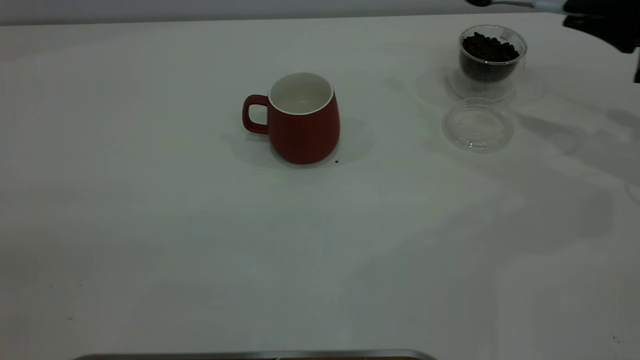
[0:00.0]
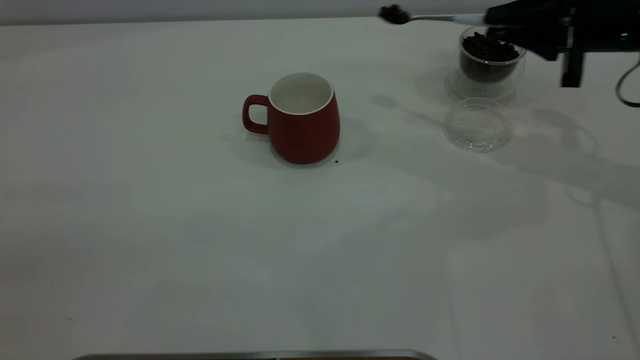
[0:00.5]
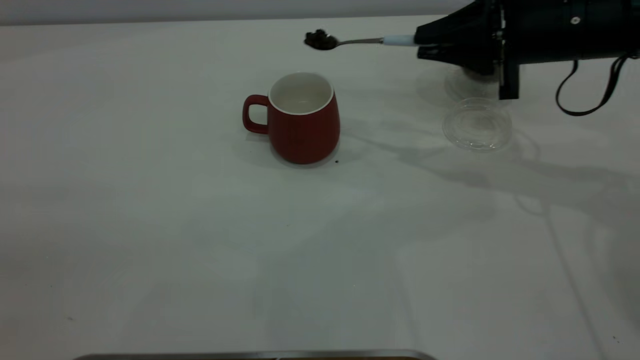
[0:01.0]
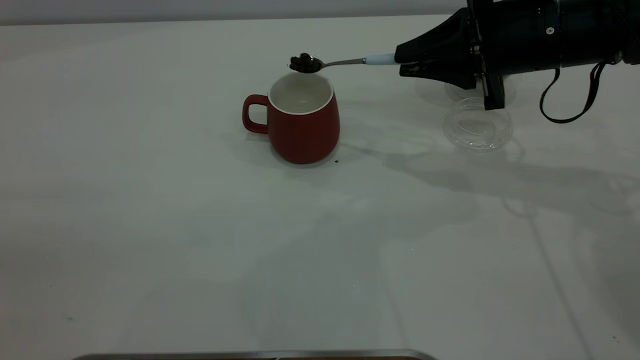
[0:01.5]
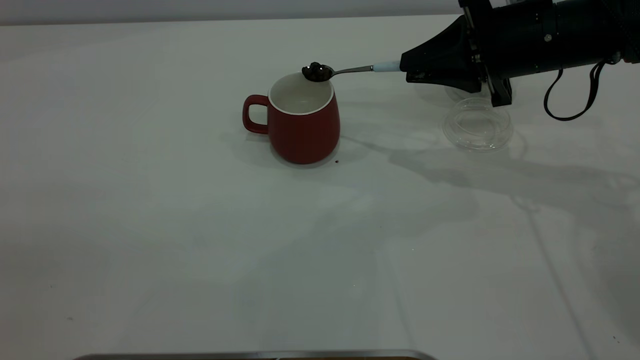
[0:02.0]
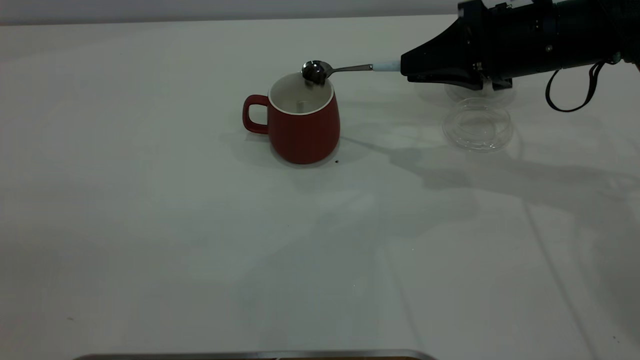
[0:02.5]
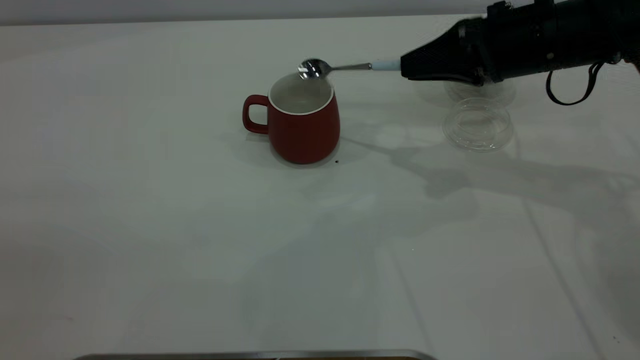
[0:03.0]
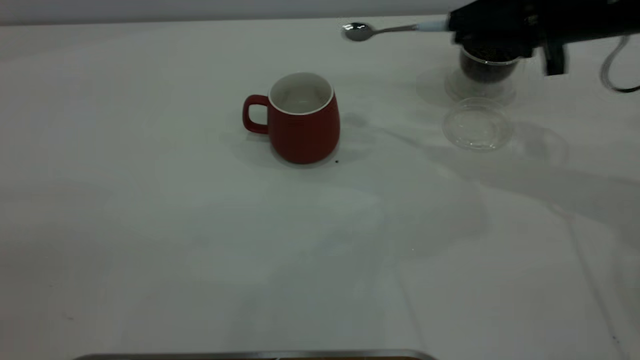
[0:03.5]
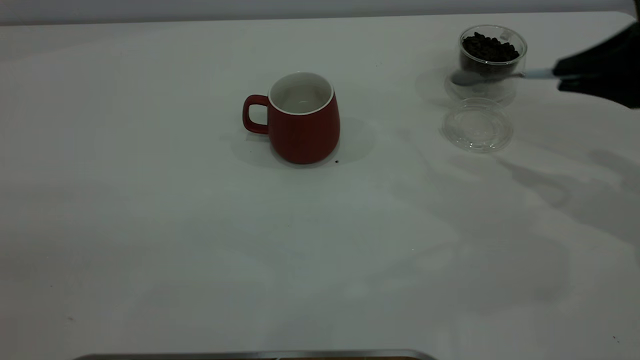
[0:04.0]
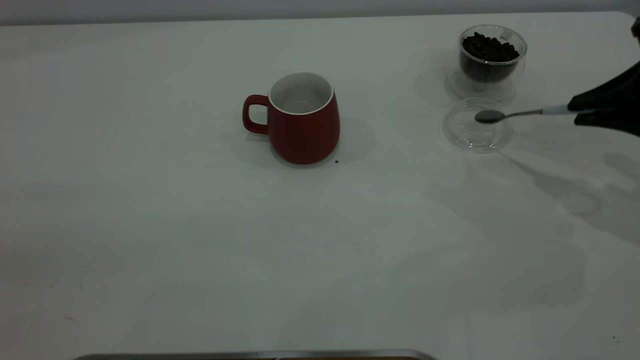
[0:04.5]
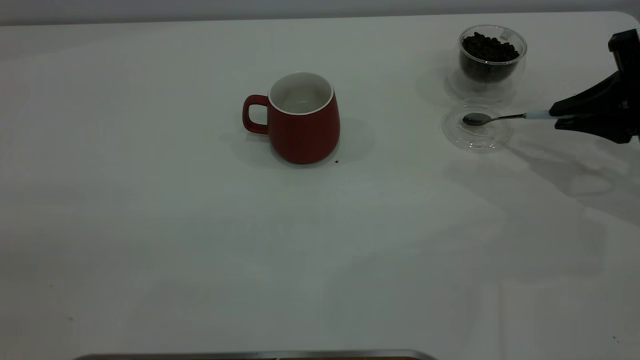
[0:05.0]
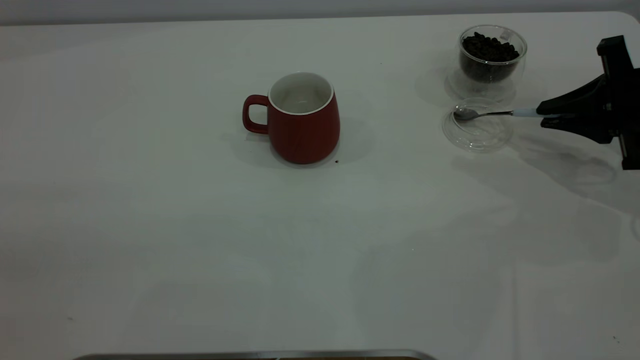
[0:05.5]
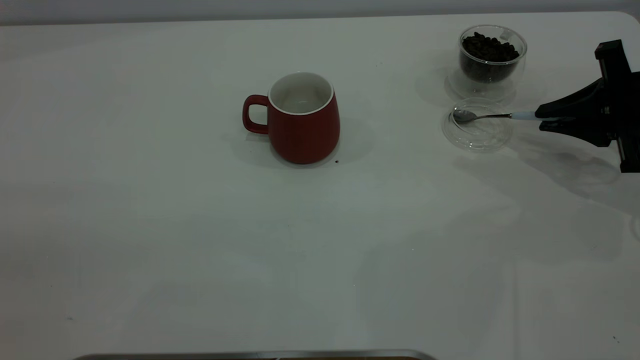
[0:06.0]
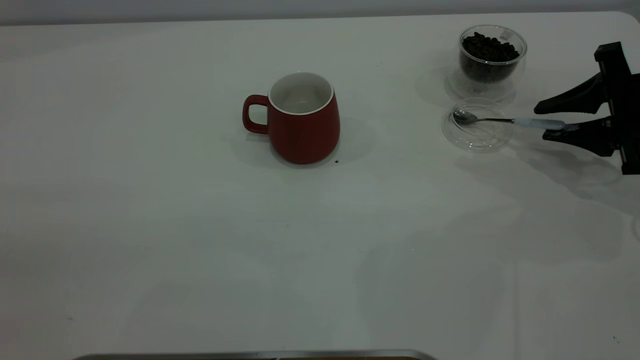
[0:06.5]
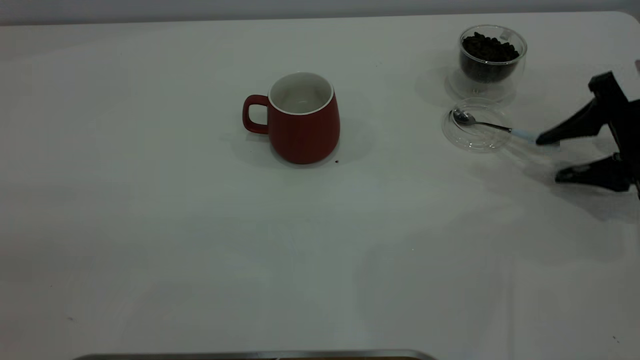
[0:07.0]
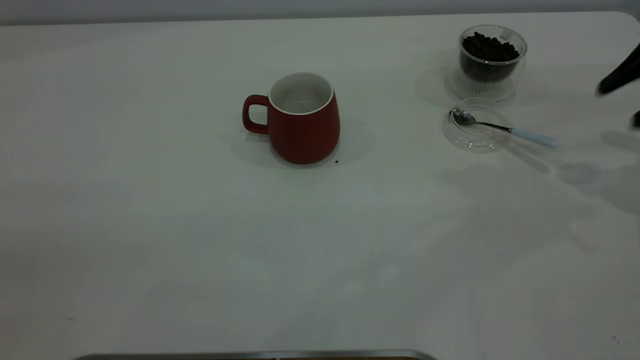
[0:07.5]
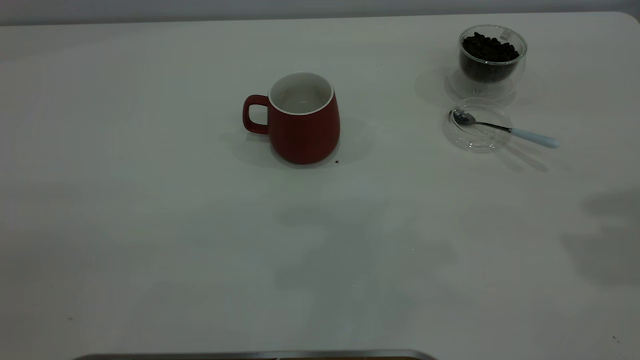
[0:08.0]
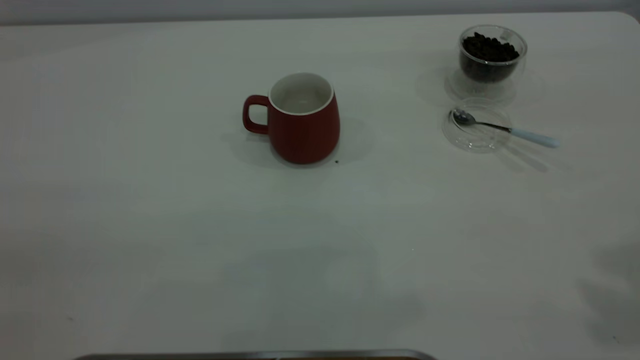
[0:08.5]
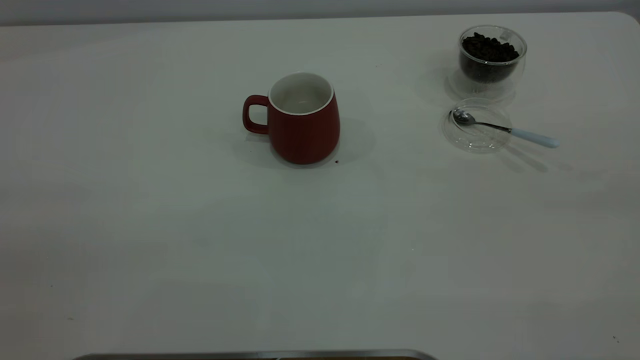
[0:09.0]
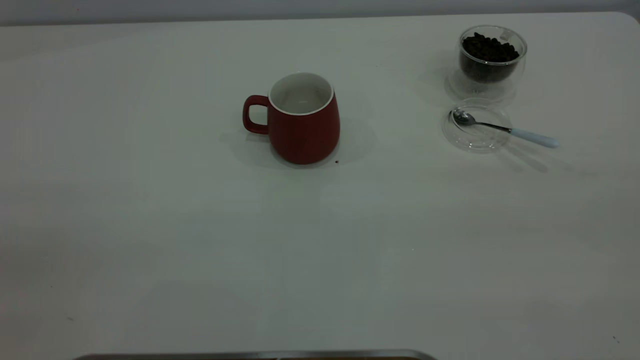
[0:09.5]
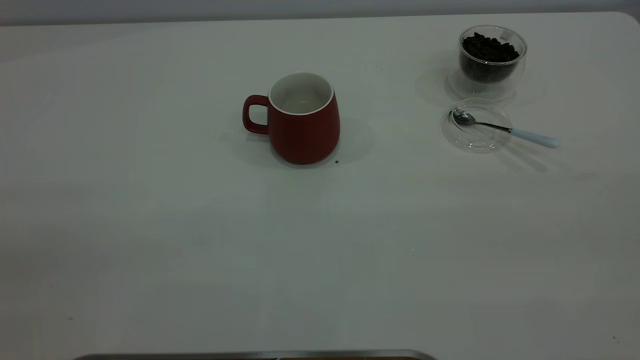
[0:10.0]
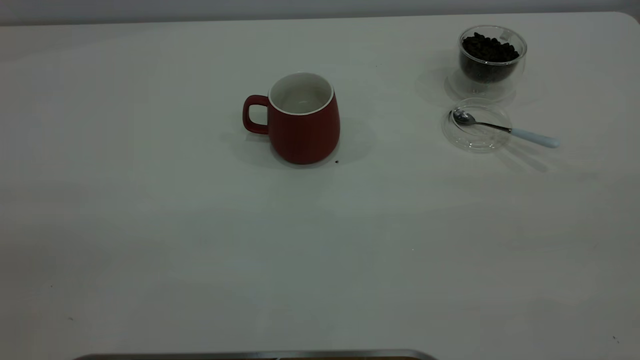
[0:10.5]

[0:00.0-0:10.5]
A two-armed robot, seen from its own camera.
Task of the whole recording: the left gripper place the red cup in the center of the table, the right gripper take the blue spoon from the cup lid and scoop out the coffee beans from the coffee cup and put them into the red cup, the right gripper put the spoon back into the cup lid.
Step, 0:00.0 to 0:03.0: Scoop a spoonful of beans into the cup.
Step, 0:03.5 to 0:07.0: Place the spoon back in its original place.
0:00.0 to 0:02.0: The right gripper travels to the left by about 15 cm.
0:02.0 to 0:04.0: The right gripper goes approximately 15 cm to the right and backward.
0:04.0 to 0:06.5: The right gripper travels downward by roughly 10 cm, and opens.
0:06.5 to 0:08.5: The right gripper moves upward and backward, approximately 40 cm.
